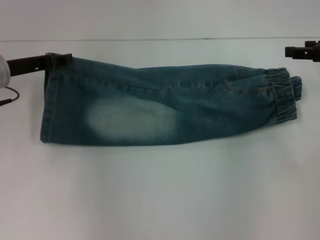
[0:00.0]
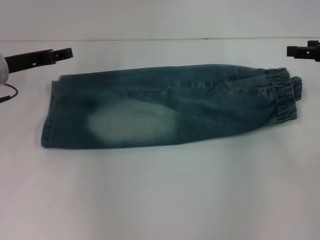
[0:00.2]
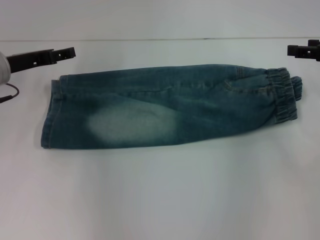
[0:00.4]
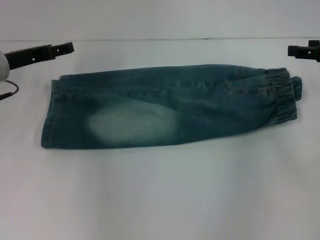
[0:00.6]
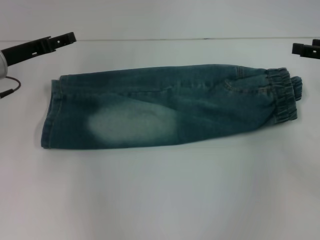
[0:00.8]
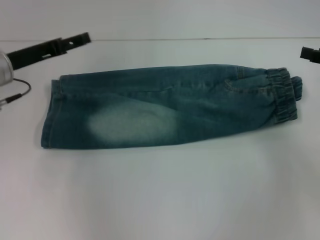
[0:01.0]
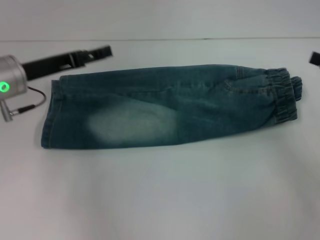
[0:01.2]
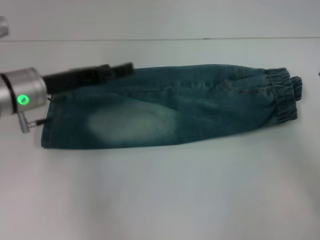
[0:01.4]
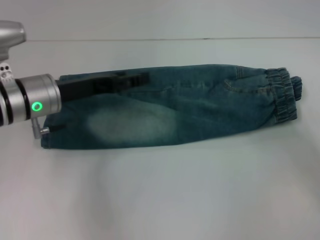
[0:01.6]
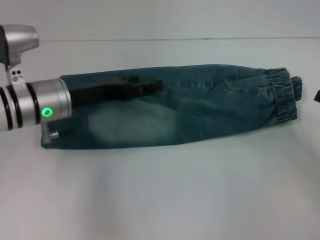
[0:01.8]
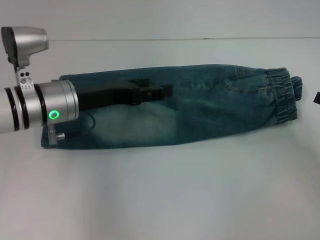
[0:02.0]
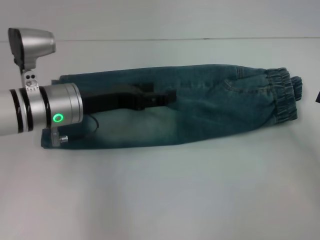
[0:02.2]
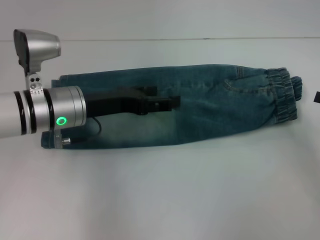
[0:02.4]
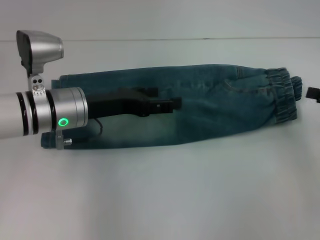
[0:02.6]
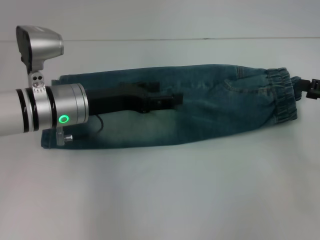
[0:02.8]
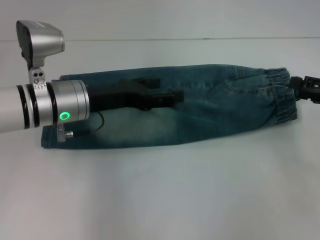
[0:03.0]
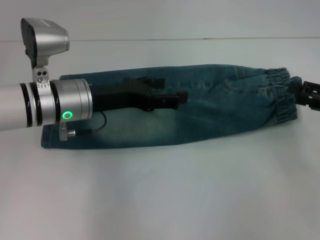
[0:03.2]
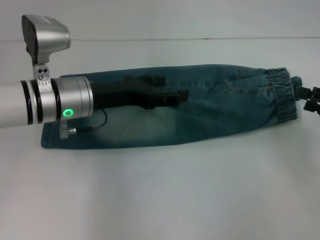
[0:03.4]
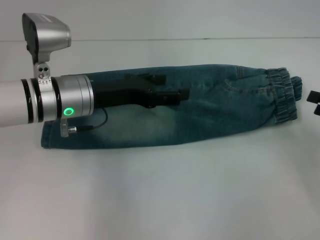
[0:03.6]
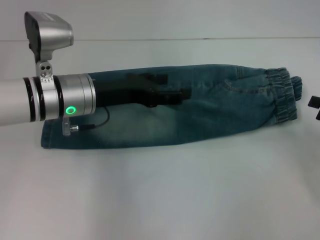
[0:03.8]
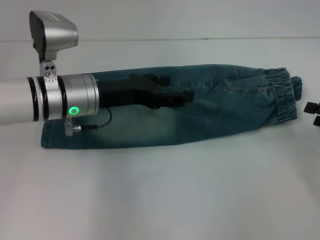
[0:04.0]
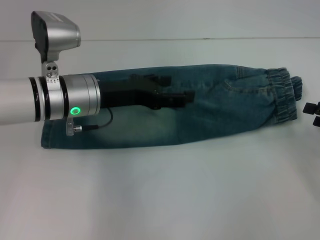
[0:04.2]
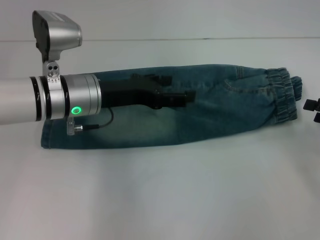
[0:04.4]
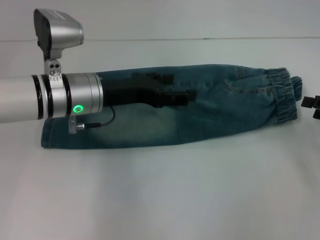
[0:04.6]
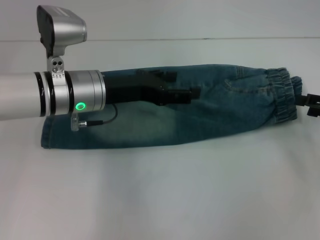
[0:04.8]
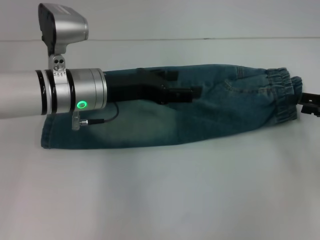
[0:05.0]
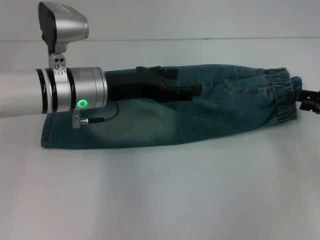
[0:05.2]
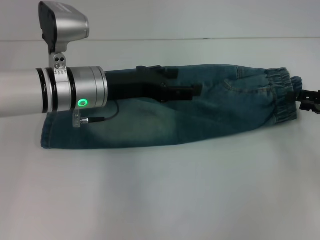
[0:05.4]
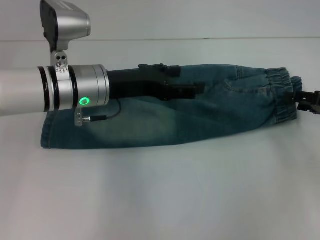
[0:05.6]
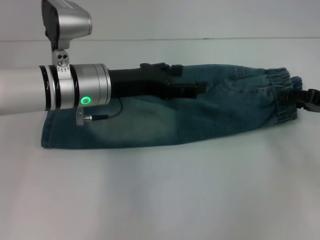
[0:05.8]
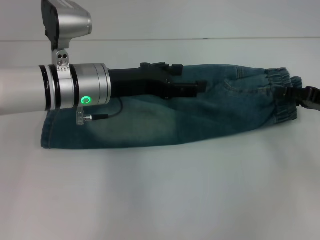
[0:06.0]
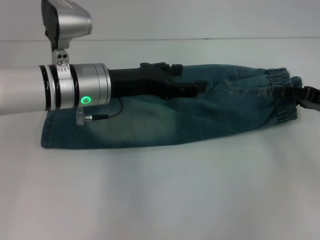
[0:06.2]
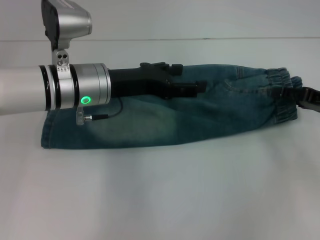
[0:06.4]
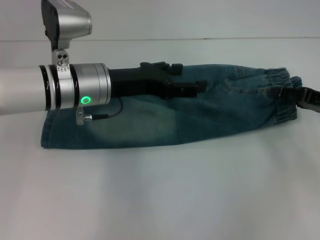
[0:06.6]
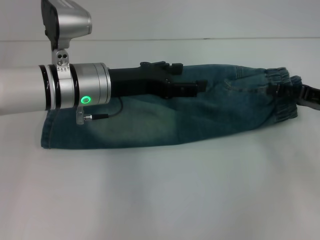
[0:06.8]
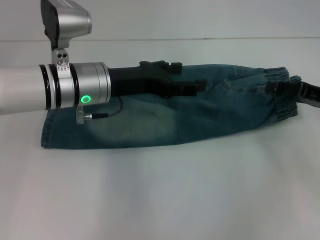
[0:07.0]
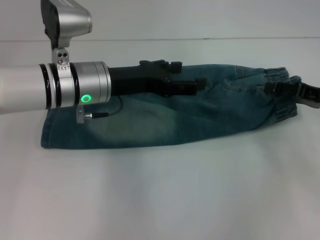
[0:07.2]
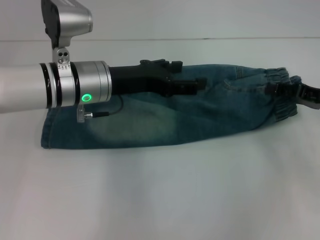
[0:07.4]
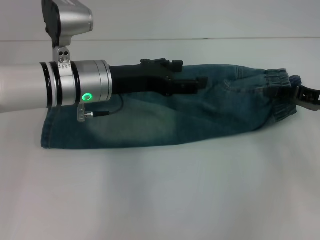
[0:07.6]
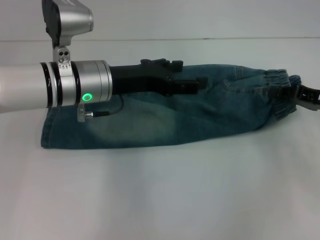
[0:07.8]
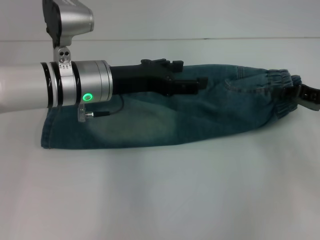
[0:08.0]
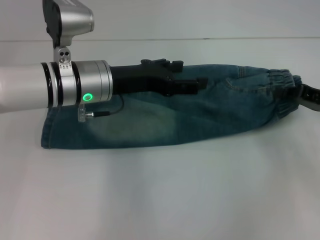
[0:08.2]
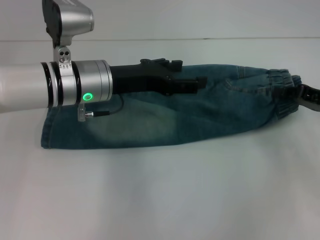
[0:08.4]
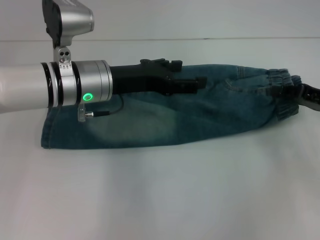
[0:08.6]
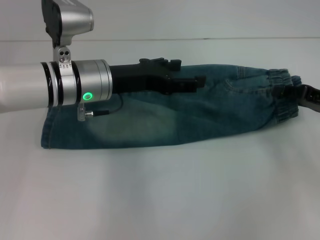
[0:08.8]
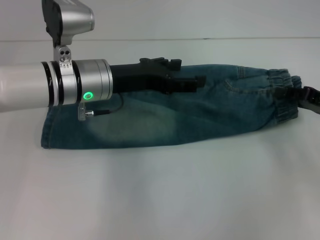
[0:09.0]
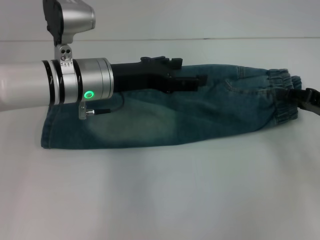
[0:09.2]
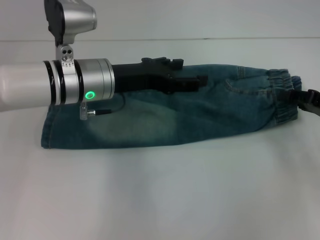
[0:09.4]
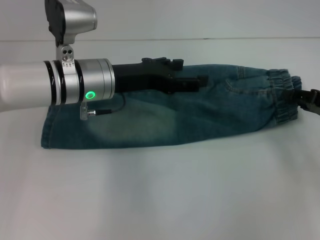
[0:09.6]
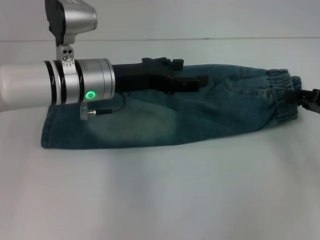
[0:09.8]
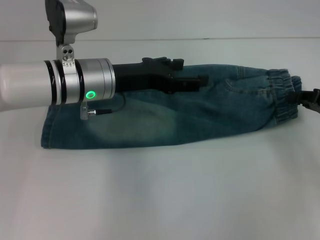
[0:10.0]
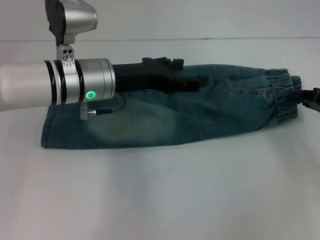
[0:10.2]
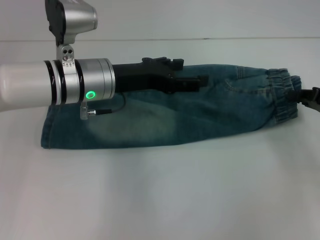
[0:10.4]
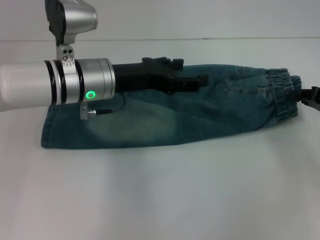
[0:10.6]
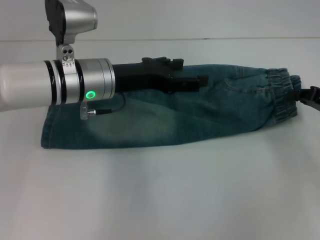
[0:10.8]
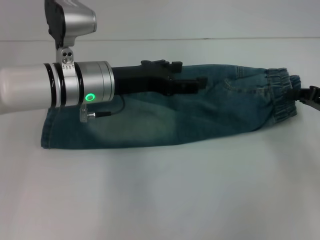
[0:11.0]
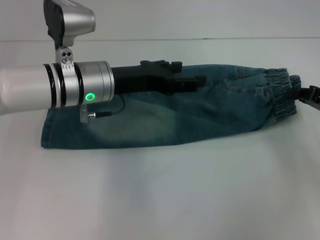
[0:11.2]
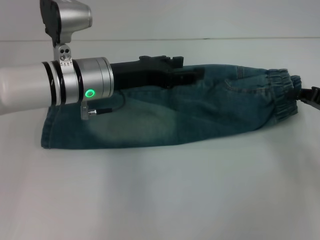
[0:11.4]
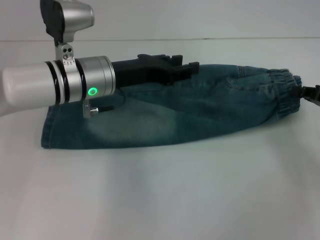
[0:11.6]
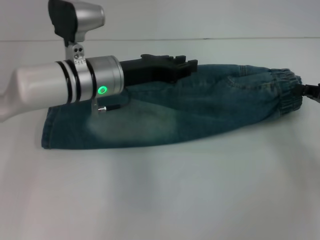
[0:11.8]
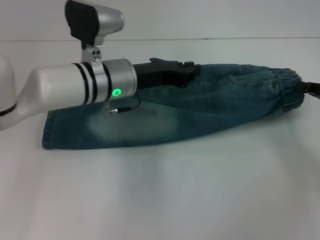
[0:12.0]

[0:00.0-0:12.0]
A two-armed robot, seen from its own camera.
Step, 0:00.0 to 0:00.2: Fold upward with your left hand.
Step, 0:00.4 to 0:11.4: Grab the waistband with your right hand.
0:00.0 to 0:01.6: The left gripper shifts some 5 cm to the right, and opens up, while the right gripper heads backward and downward, covering roughly 15 cm.
0:01.6 to 0:03.0: The right gripper changes place by some 5 cm.
0:03.0 to 0:04.4: The grippers make only small movements.
0:04.4 to 0:06.0: The right gripper shifts about 5 cm forward.
0:06.0 to 0:07.6: The grippers make only small movements.
0:07.6 to 0:09.0: The right gripper closes and opens again.
0:09.0 to 0:10.4: The grippers move only a little.
0:10.4 to 0:12.0: The left gripper closes.

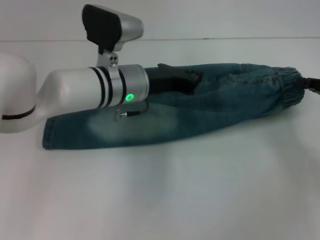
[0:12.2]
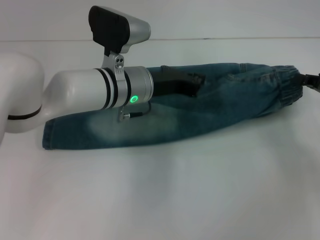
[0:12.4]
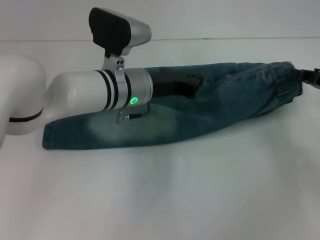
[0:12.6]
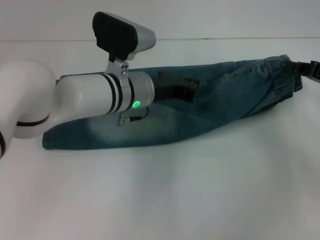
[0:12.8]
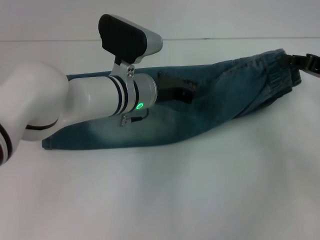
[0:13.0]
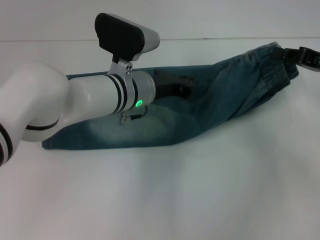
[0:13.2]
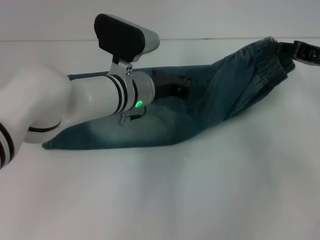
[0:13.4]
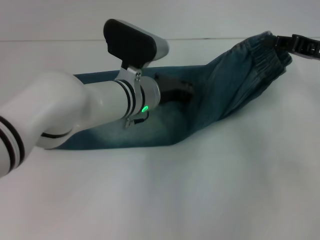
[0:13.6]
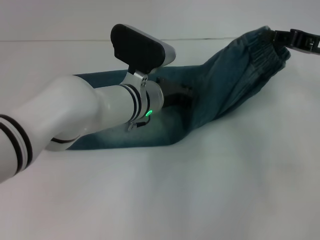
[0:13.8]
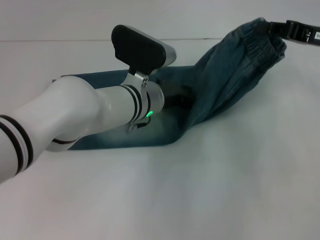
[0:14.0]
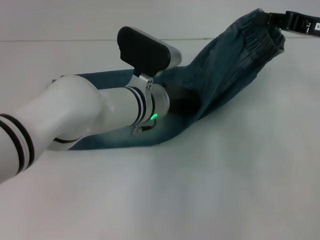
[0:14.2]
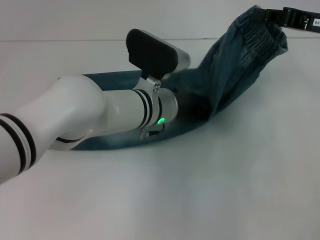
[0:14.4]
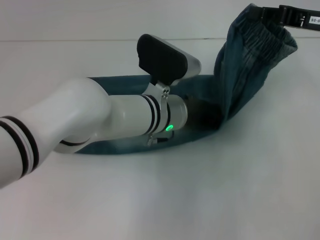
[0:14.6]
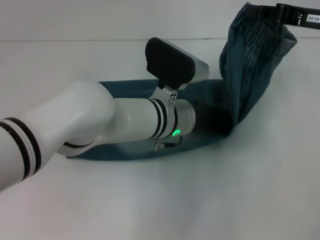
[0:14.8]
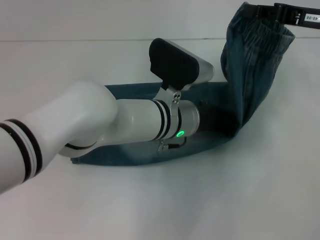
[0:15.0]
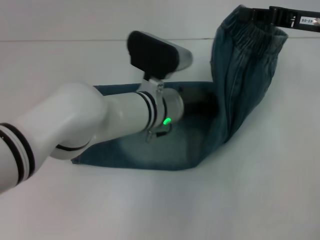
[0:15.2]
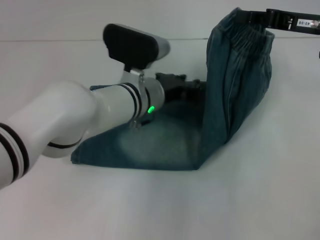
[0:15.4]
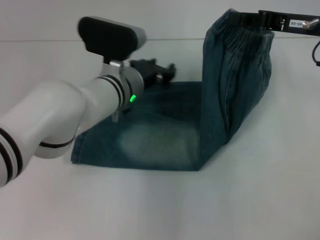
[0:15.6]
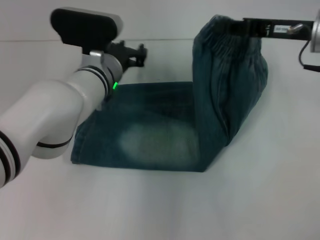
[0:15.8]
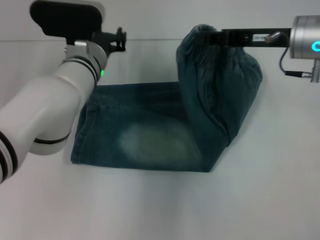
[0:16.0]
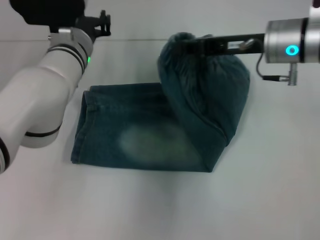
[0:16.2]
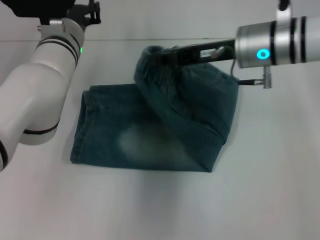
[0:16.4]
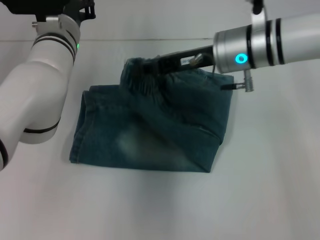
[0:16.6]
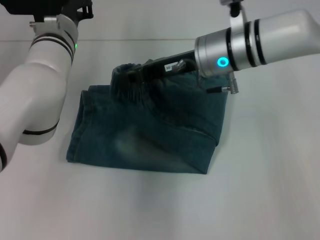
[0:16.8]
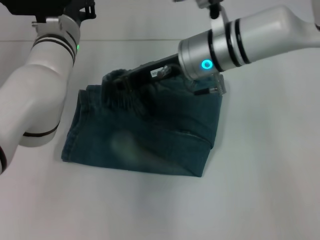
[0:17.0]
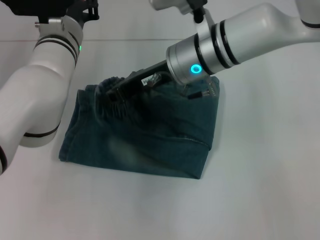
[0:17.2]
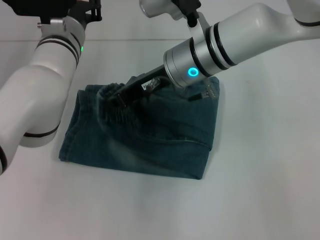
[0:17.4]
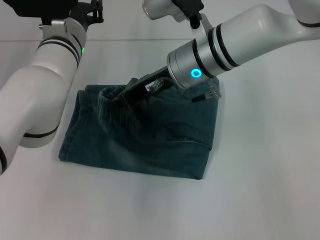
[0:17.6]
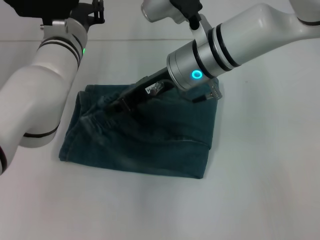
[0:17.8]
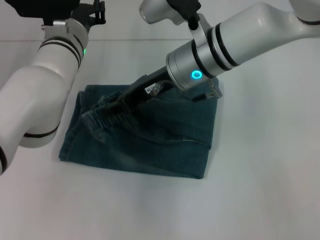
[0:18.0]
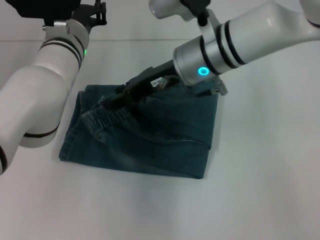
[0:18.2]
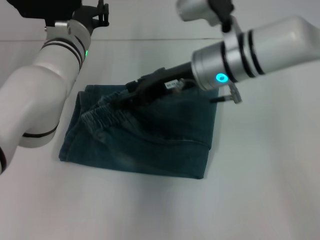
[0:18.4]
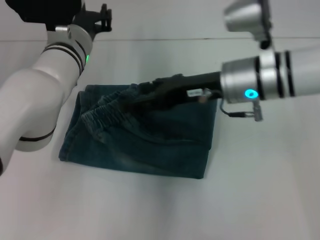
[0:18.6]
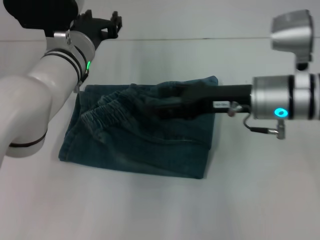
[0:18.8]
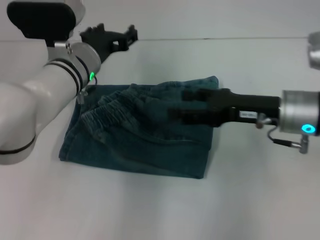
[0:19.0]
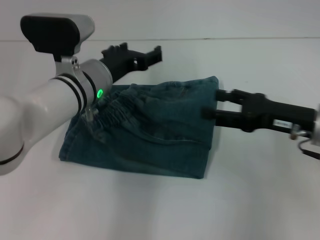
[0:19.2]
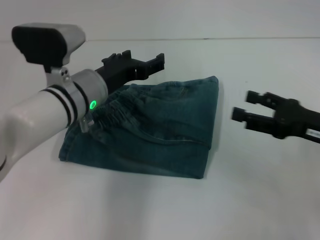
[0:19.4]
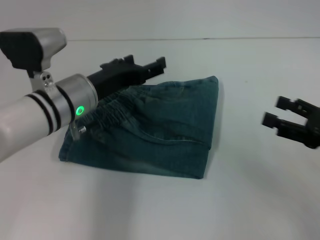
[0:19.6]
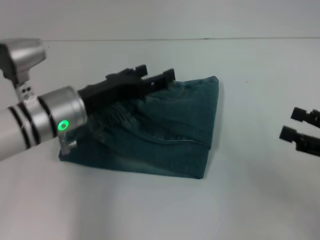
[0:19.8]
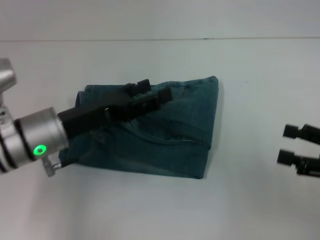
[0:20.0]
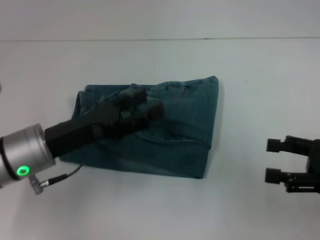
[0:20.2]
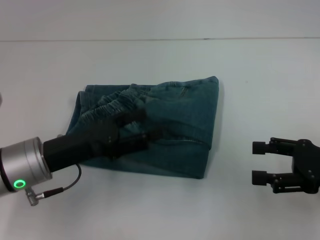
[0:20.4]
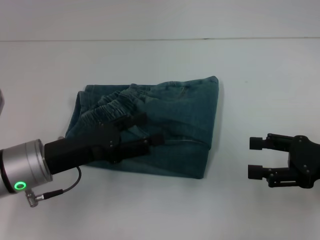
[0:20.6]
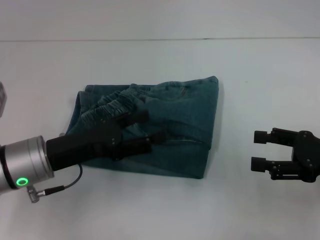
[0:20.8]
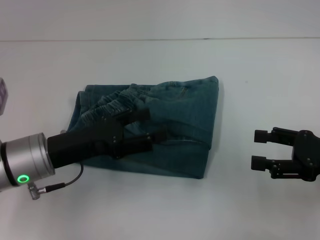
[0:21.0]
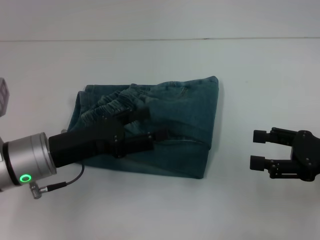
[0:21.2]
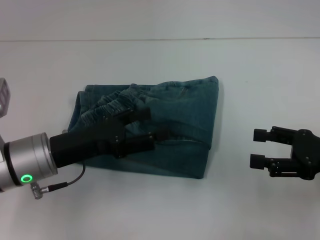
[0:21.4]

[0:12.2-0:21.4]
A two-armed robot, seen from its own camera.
Step, 0:12.2 to 0:15.2: Press the middle of the pants with your left hand.
Step, 0:15.4 to 0:17.6: Fold to the left with your right hand.
0:12.2 to 0:13.8: The right gripper goes about 10 cm upward and to the left.
0:13.8 to 0:15.2: The right gripper shifts by some 5 cm.
0:15.2 to 0:16.8: The right gripper goes approximately 20 cm to the left. Meanwhile the left gripper is displaced to the left, forward and upward by some 15 cm, and opens its fingers.
0:16.8 to 0:18.4: The right gripper opens its fingers.
0:18.4 to 0:19.8: The right gripper shifts about 30 cm to the right and backward, and opens up; the left gripper moves backward, roughly 10 cm, and opens.
0:19.8 to 0:21.4: The left gripper ends up approximately 5 cm from where it was.
